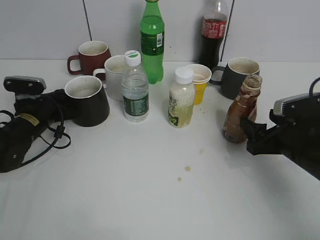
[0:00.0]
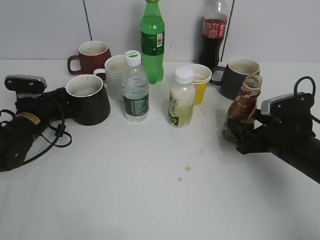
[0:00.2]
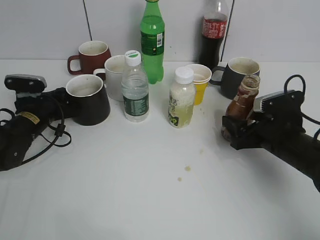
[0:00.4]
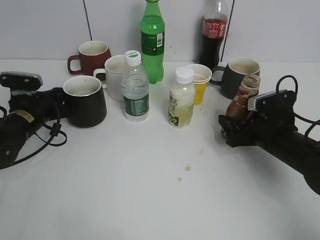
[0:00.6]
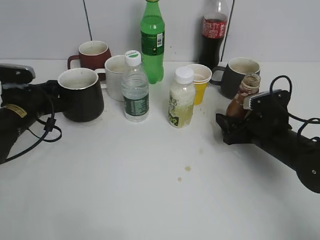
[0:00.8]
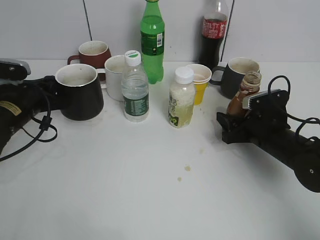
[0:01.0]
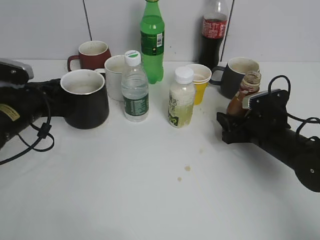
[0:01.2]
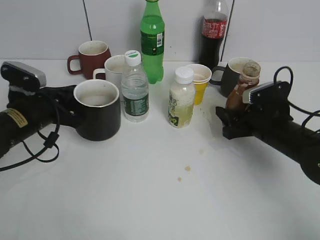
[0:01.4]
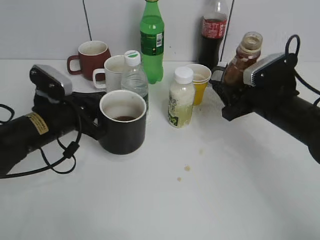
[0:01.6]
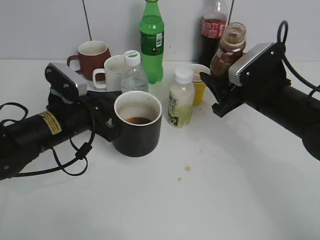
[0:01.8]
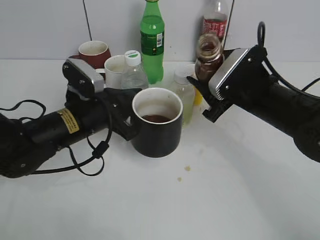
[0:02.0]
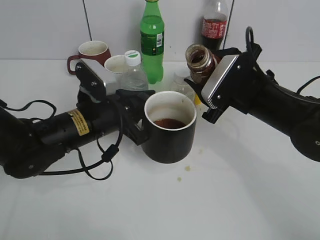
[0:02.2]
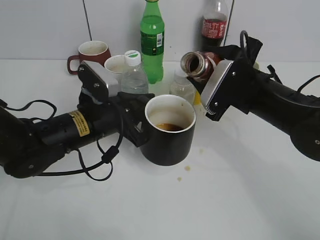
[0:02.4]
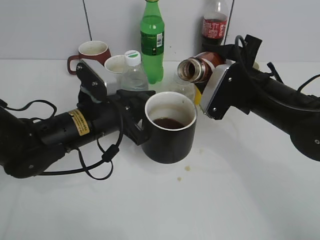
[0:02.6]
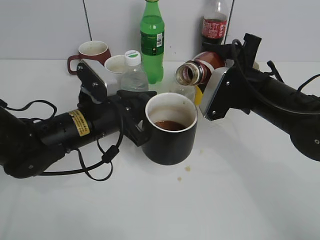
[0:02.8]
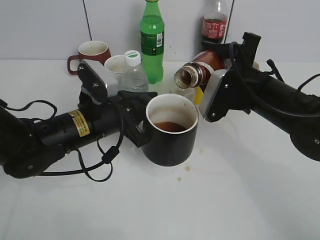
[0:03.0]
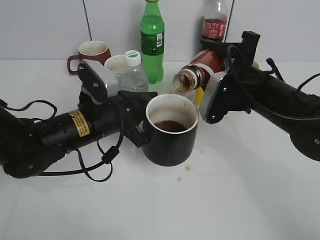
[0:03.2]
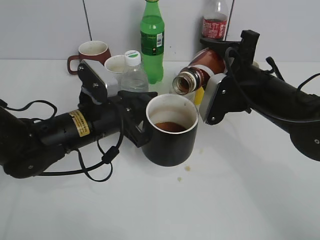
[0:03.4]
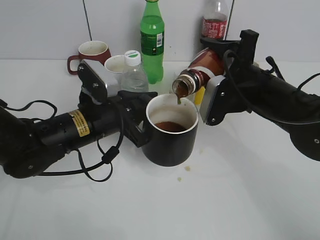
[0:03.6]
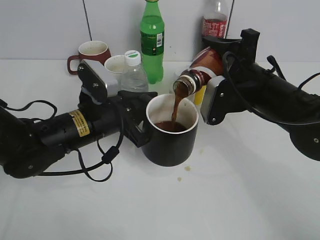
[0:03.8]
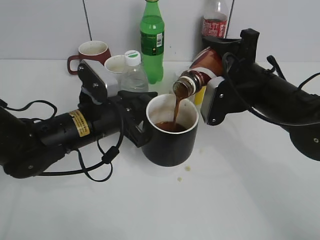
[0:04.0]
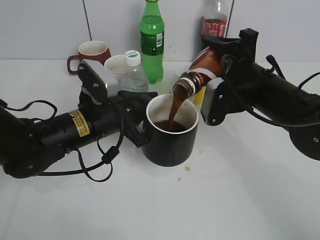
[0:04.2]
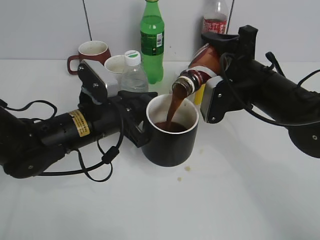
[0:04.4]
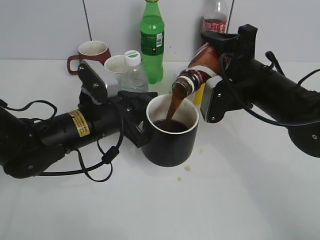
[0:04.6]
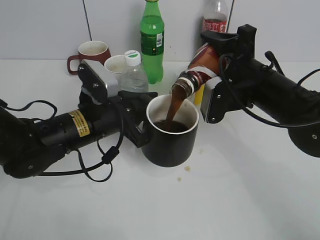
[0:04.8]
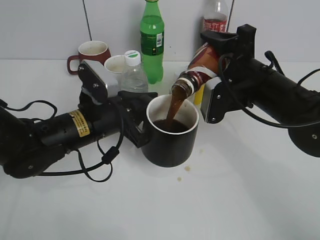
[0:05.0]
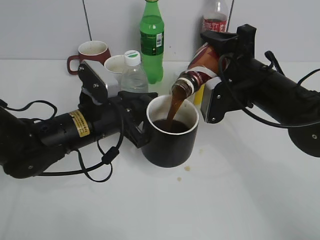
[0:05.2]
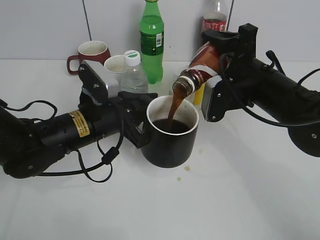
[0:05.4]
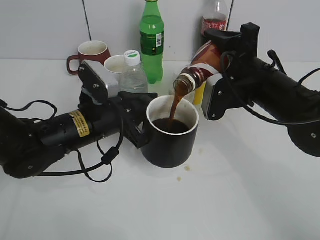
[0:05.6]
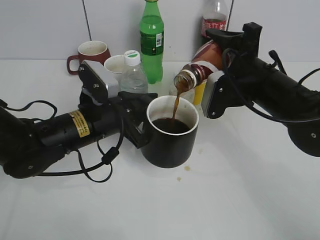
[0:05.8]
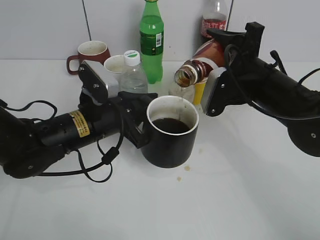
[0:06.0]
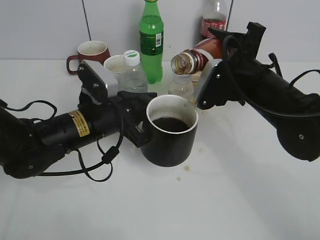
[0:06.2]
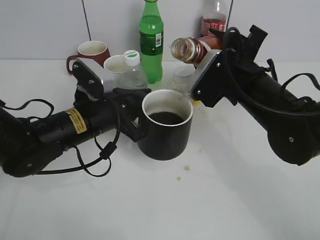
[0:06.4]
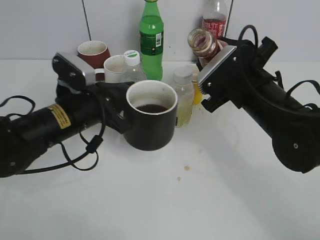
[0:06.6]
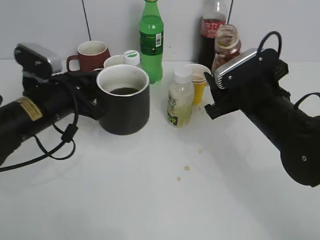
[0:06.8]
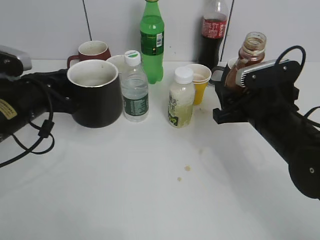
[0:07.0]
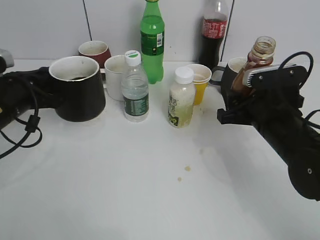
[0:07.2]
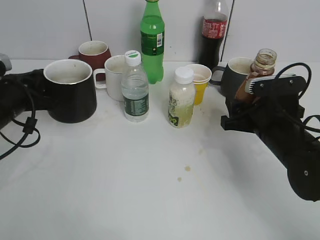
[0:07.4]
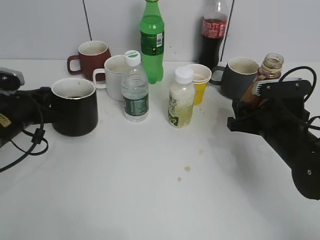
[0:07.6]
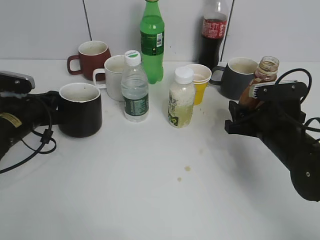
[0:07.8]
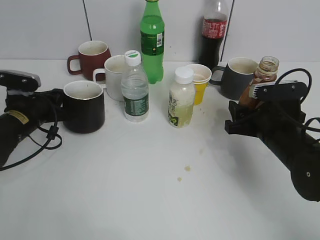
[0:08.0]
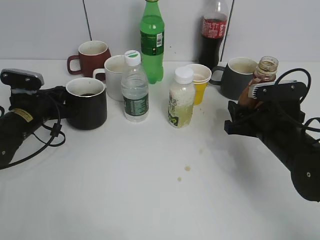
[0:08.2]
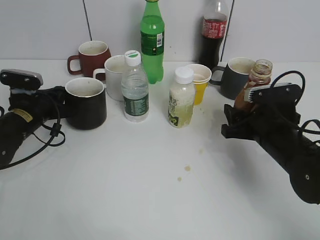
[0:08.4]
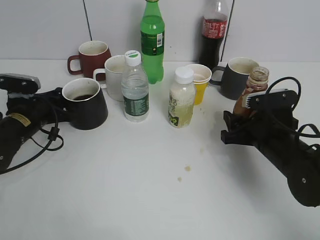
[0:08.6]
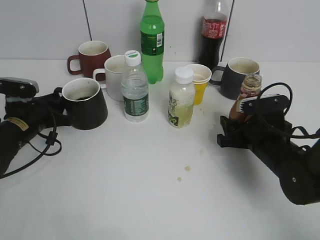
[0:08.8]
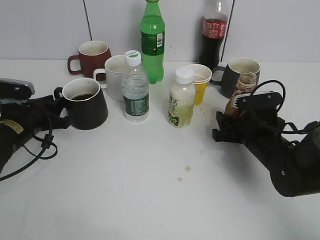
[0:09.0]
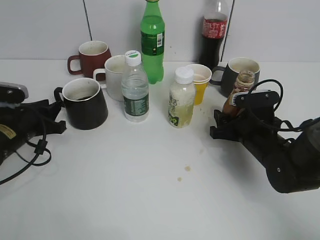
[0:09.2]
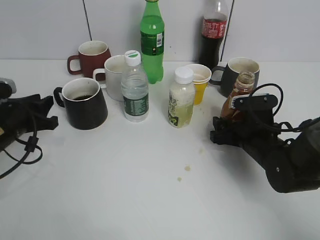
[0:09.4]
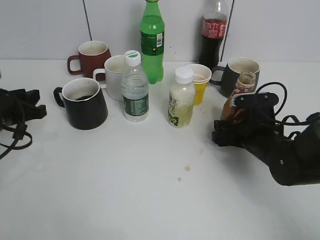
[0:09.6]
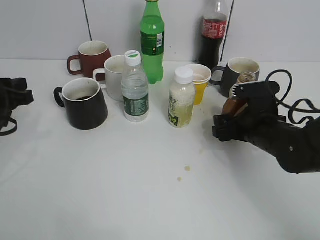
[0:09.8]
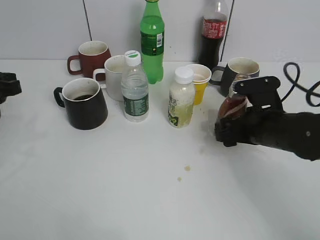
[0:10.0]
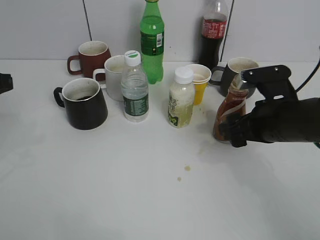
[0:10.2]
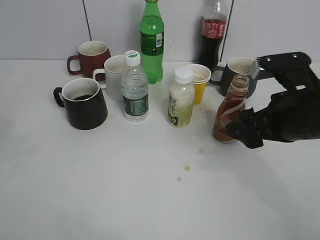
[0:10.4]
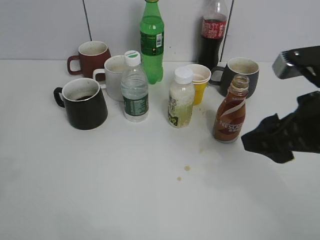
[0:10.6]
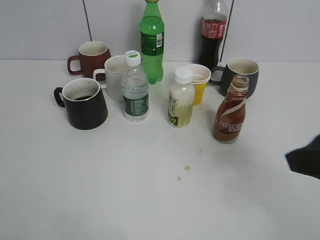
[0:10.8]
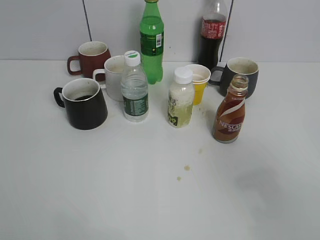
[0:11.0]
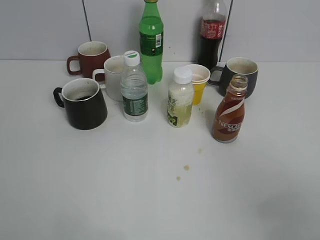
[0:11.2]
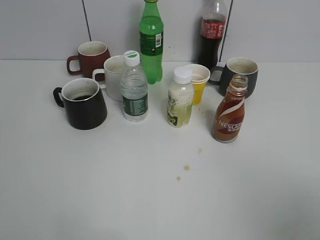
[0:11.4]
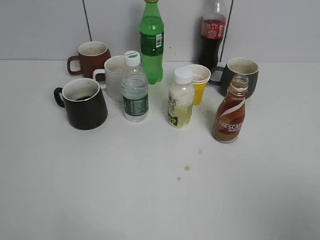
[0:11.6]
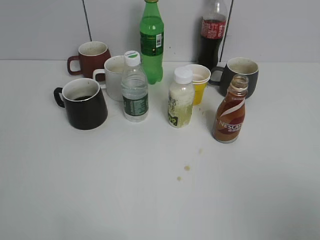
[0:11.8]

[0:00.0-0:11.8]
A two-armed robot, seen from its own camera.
Step, 0:00.0 to 0:00.4: Grasp the bottle with coffee with right gripper.
Step, 0:00.6 to 0:01.2: Lift the black cup with left gripper.
Step, 0:01.4 to 0:06.6: Pour the coffee from bottle to cup with right gripper.
Step, 0:06.8 to 0:10.0: Place the coffee bottle on the table with right gripper.
0:00.0 to 0:01.4: The left gripper moves upward, some 5 cm; the right gripper goes roughly 5 cm forward, and closes up.
0:01.4 to 0:03.0: The left gripper goes approximately 10 cm to the right. The right gripper travels upward and to the left by approximately 10 cm.
0:03.0 to 0:04.4: There are only small adjustments of the grippers.
0:04.4 to 0:06.0: There are only small adjustments of the grippers.
0:06.0 to 0:07.4: The right gripper shifts roughly 5 cm downward; the left gripper travels to the left by about 15 cm.
0:07.4 to 0:08.8: The left gripper goes some 10 cm downward, and opens its fingers.
0:08.8 to 0:10.4: The right gripper heads upward, covering about 10 cm, and opens; the left gripper goes some 25 cm upward and backward.
0:10.4 to 0:11.8: The right gripper travels backward and to the right by approximately 25 cm, while the left gripper moves backward, about 20 cm.

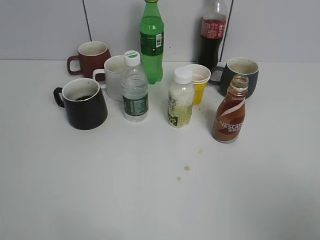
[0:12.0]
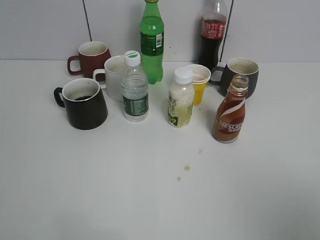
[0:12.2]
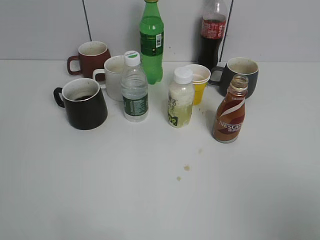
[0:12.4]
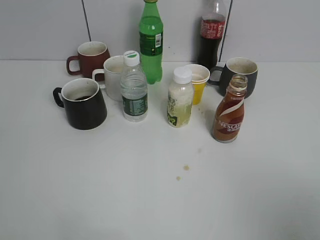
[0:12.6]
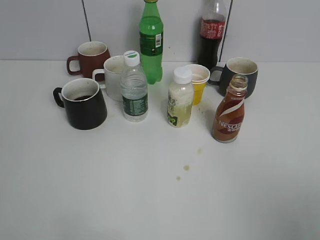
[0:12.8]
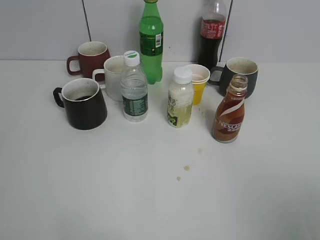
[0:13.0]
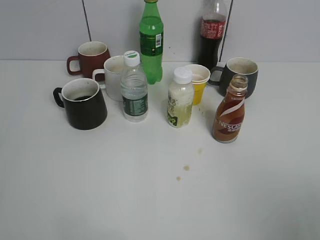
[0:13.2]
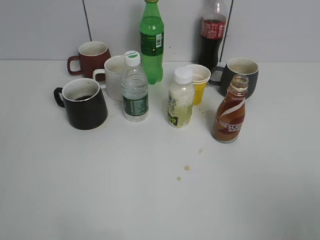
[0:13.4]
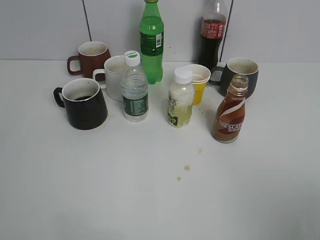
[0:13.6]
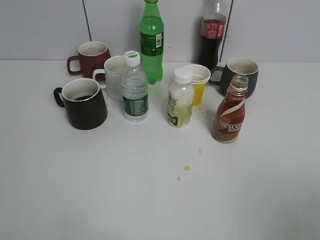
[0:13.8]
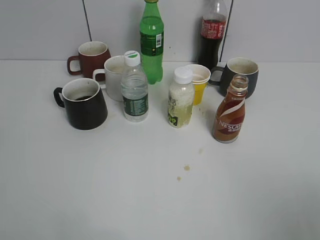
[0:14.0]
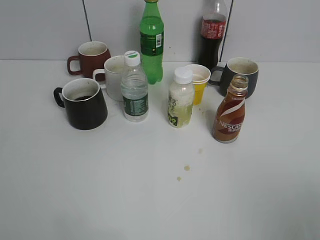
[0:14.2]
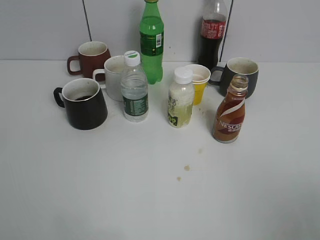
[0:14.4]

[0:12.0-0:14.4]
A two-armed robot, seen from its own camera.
0:13.2 to 0:14.4: The two grippers keep their place.
